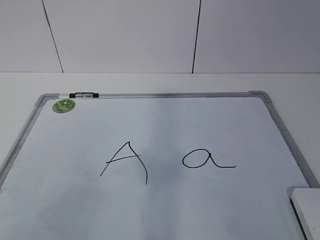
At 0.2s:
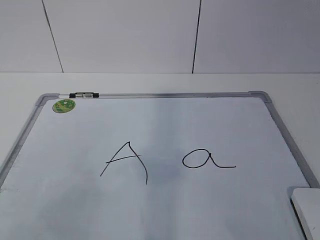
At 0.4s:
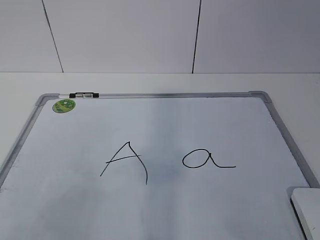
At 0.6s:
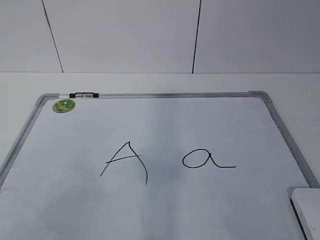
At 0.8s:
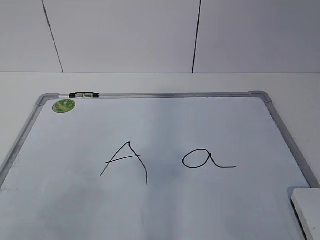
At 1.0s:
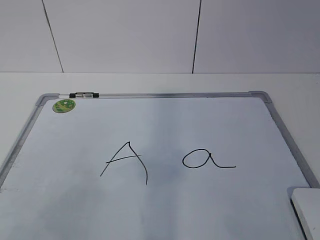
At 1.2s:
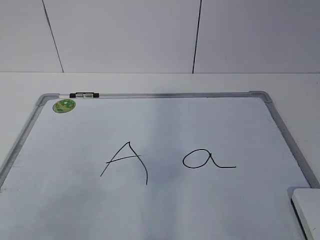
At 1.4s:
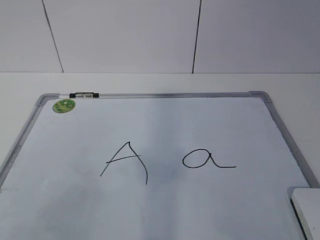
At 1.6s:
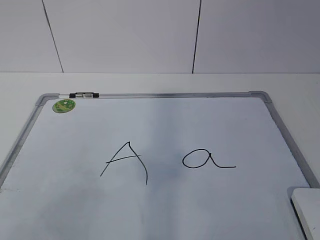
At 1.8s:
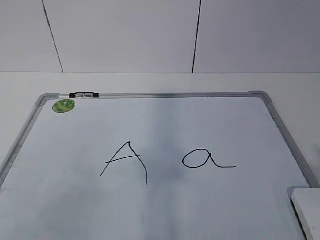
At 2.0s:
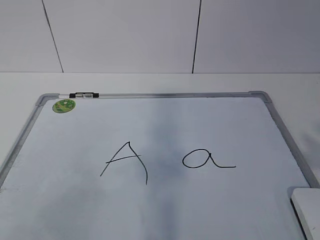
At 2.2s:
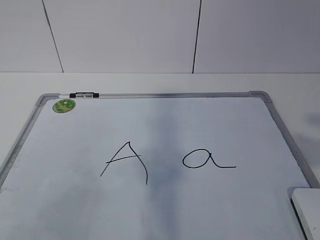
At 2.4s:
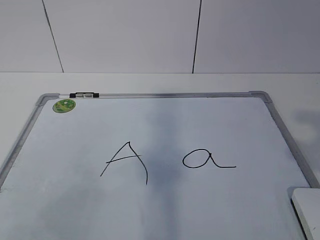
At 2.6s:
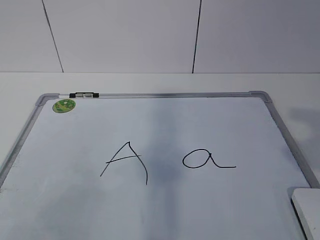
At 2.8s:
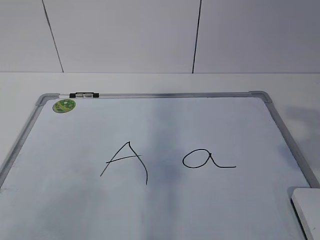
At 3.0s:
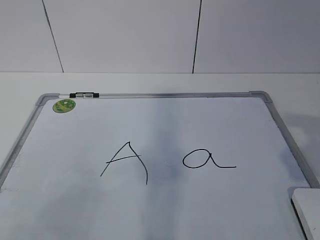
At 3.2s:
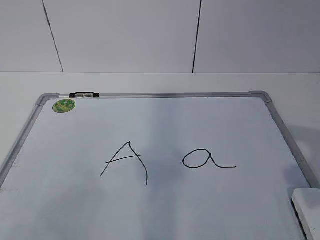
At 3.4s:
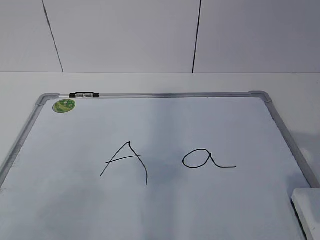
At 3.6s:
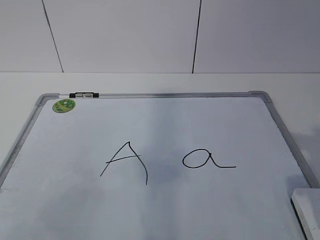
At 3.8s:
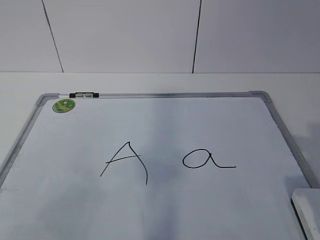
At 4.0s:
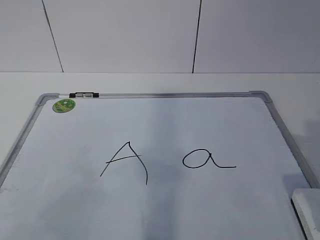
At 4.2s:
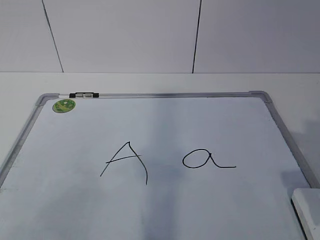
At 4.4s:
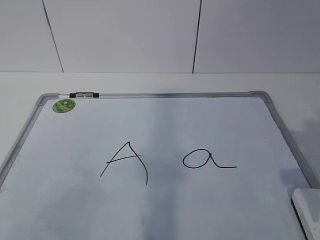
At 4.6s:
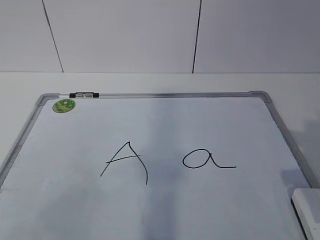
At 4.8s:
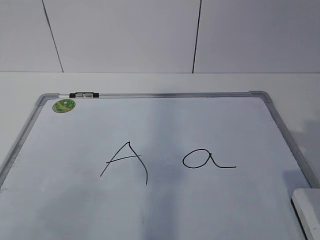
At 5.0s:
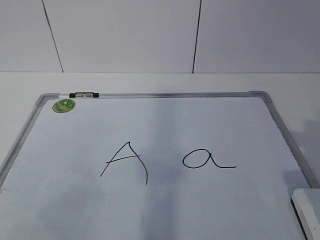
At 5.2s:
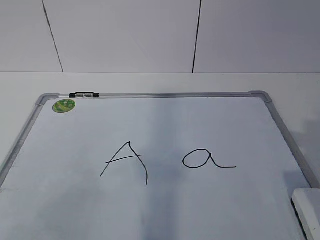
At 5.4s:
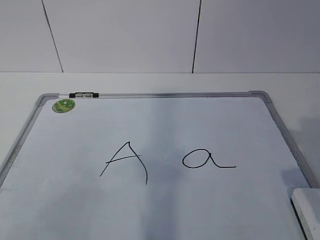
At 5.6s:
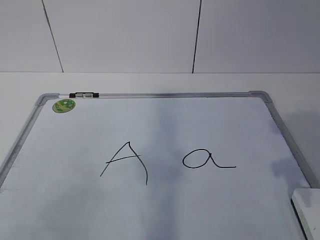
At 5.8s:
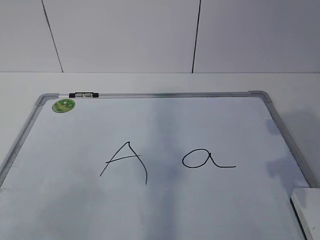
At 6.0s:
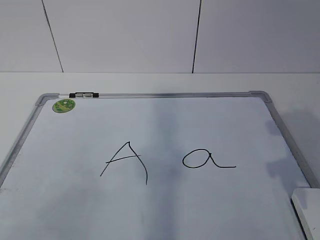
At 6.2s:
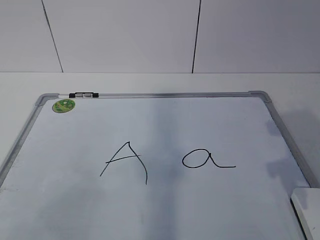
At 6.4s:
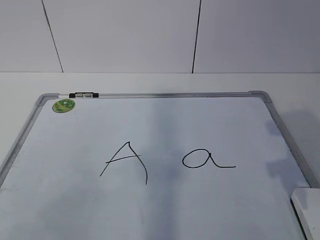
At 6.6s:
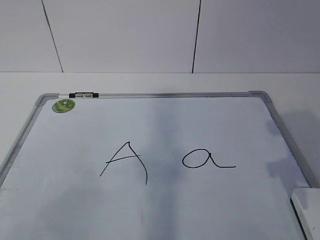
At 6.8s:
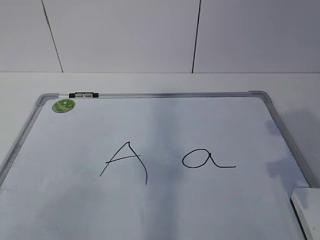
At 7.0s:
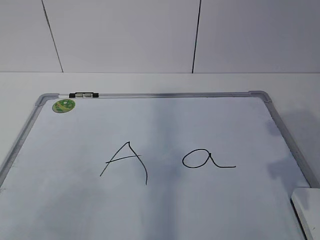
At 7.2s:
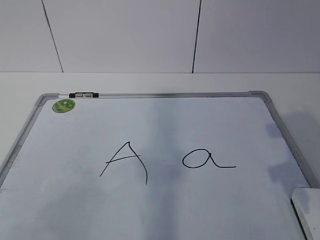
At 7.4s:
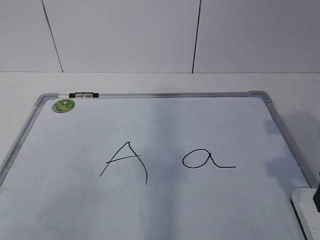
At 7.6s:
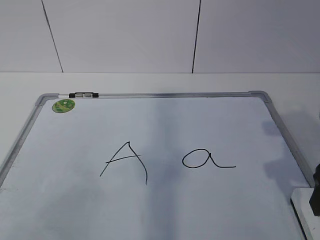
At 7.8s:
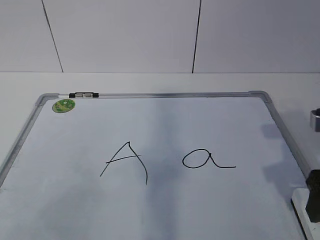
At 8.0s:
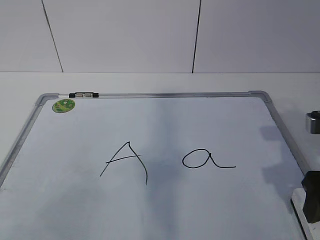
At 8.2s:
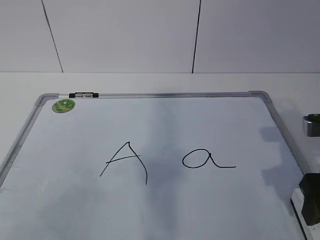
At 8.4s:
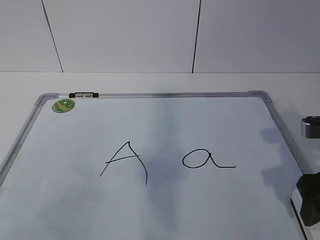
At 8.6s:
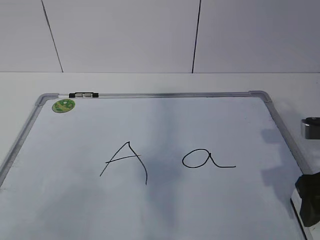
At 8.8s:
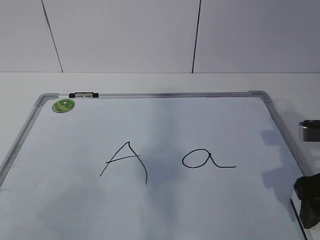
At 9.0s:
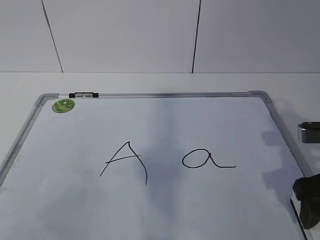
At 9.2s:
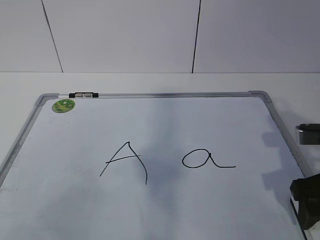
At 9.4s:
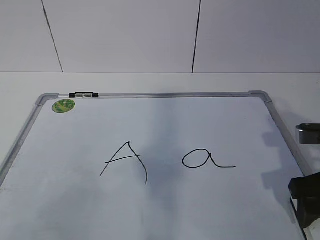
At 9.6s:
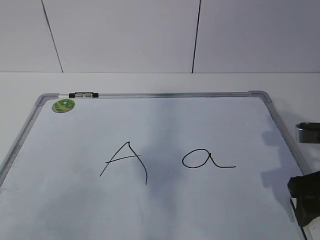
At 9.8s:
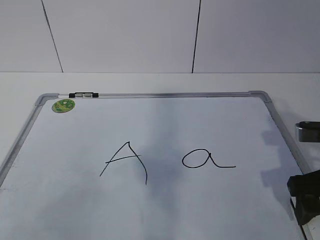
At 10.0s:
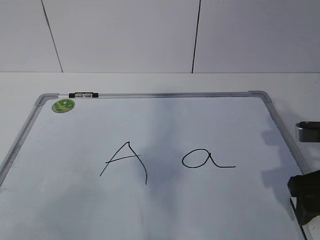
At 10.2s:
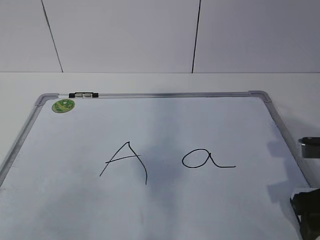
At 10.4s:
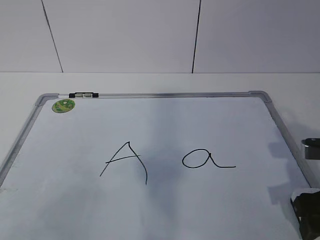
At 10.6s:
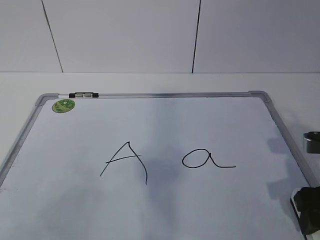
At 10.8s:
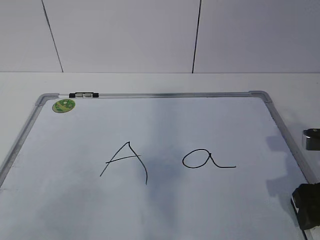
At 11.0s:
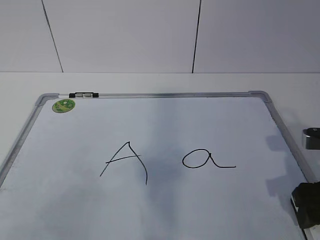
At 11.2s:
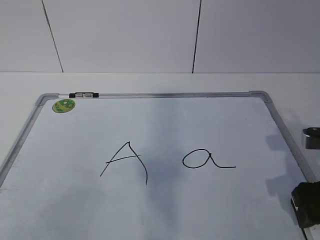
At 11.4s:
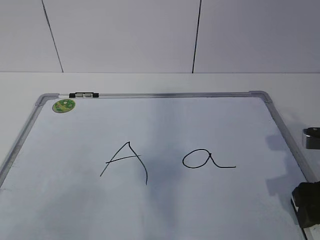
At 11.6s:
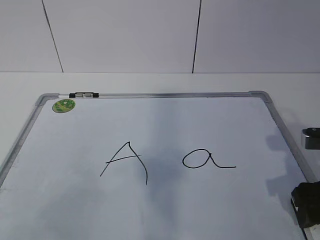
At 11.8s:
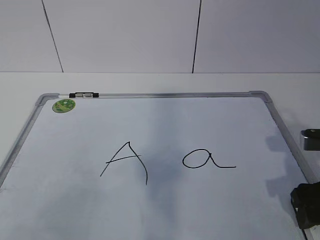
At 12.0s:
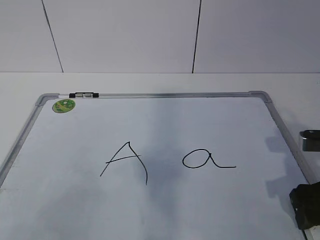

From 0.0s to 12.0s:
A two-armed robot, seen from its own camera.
Task of the whole recording: pick up the eraser on the blackboard and erase the letter "a".
From 3.0s to 4.4s: The right gripper goes some 10 cm downward and forward.
From 7.6s to 9.0s: The right gripper shifts by about 5 cm.
From 9.0s to 12.0s: The grippers move only a little.

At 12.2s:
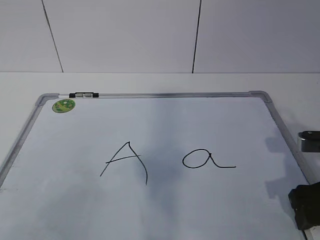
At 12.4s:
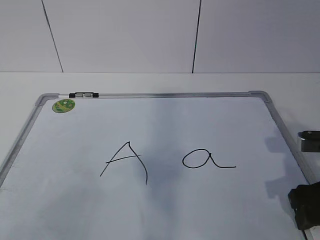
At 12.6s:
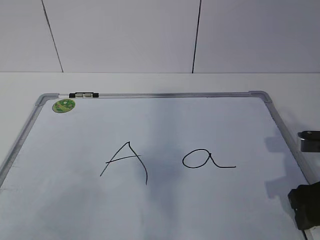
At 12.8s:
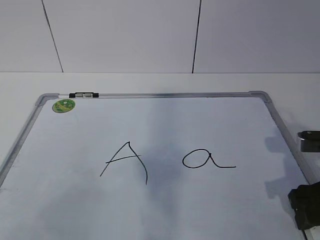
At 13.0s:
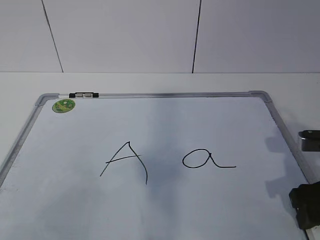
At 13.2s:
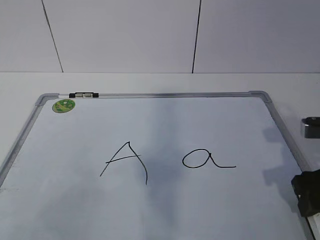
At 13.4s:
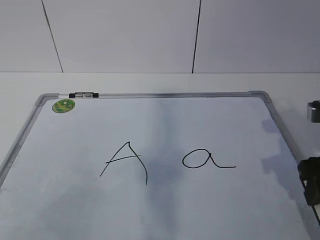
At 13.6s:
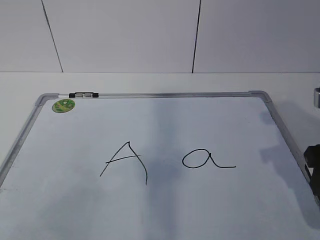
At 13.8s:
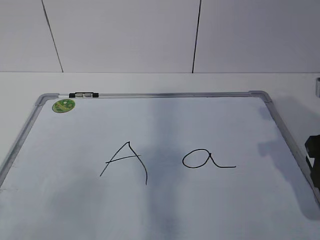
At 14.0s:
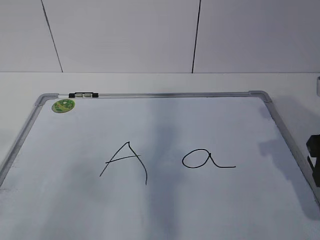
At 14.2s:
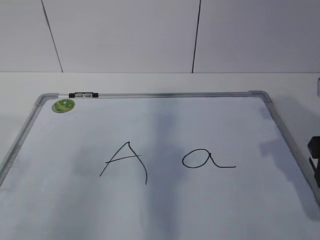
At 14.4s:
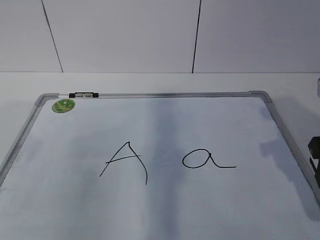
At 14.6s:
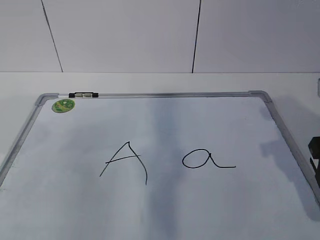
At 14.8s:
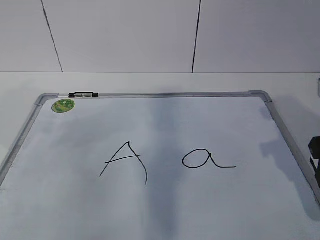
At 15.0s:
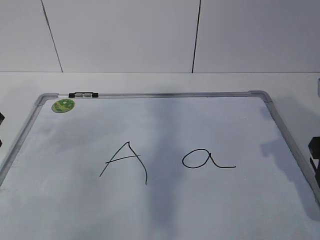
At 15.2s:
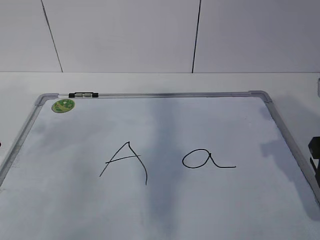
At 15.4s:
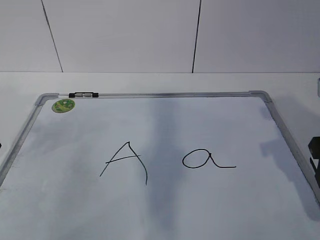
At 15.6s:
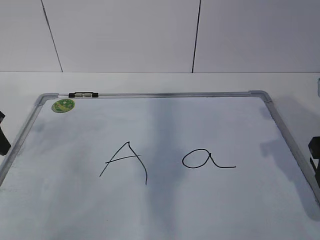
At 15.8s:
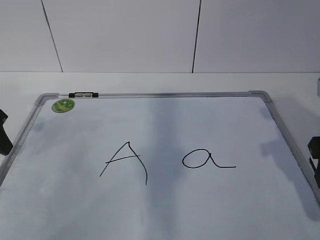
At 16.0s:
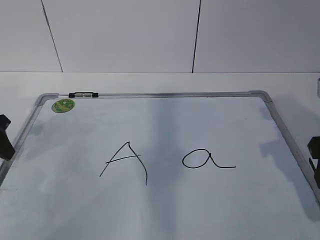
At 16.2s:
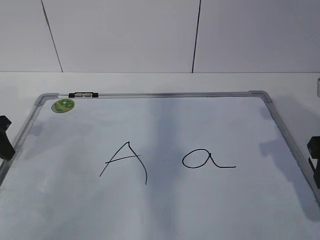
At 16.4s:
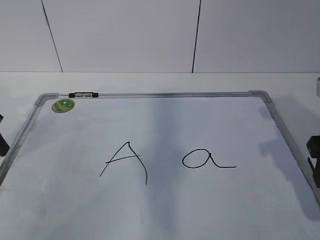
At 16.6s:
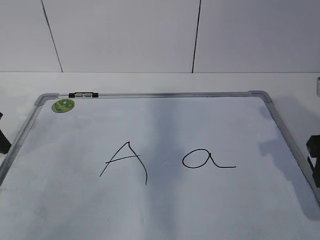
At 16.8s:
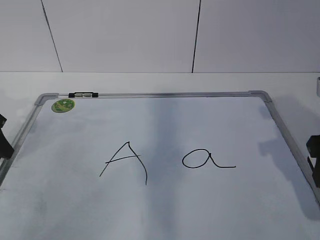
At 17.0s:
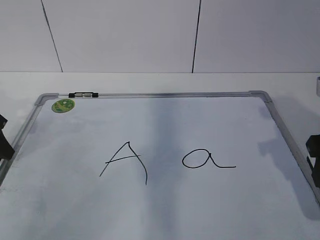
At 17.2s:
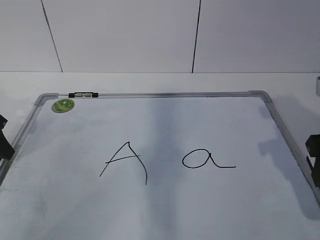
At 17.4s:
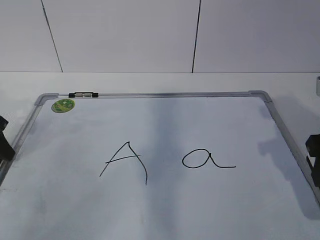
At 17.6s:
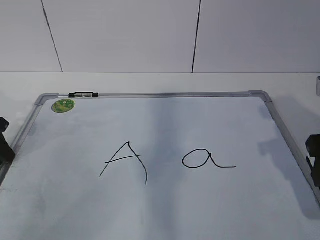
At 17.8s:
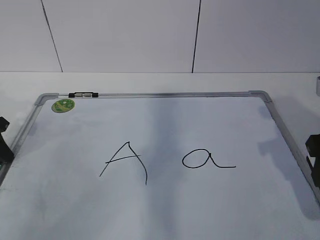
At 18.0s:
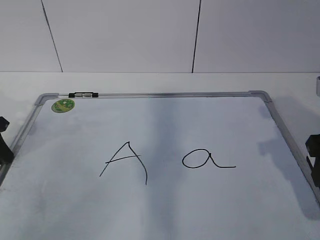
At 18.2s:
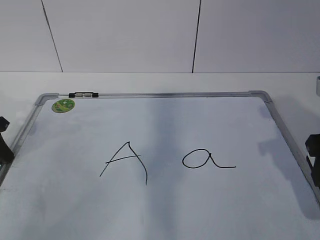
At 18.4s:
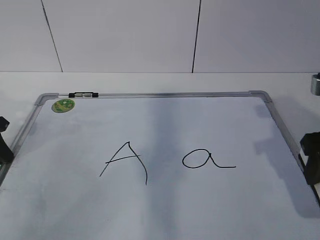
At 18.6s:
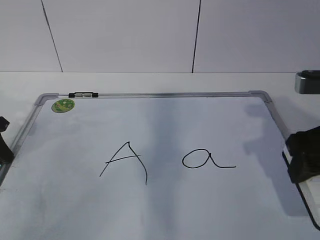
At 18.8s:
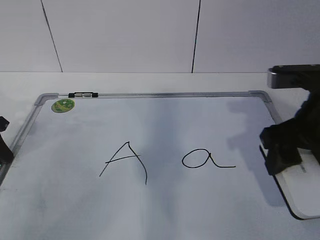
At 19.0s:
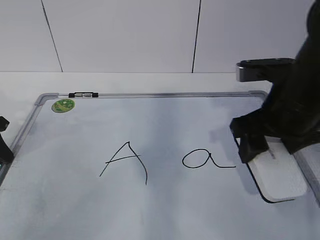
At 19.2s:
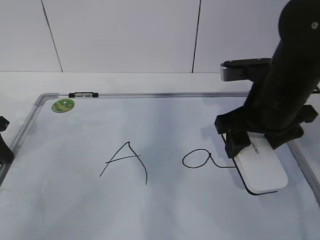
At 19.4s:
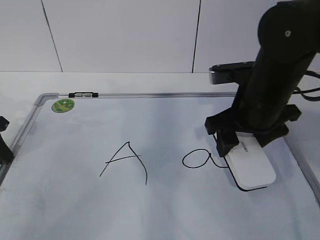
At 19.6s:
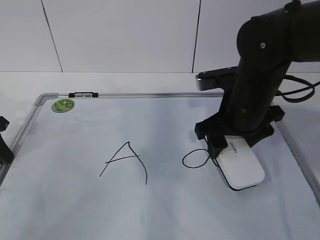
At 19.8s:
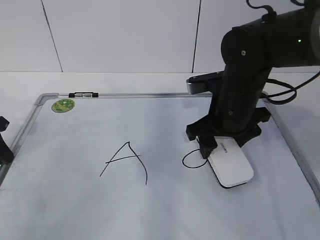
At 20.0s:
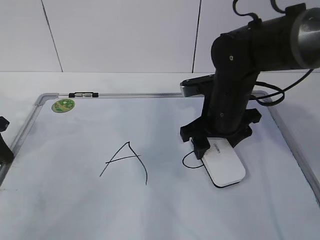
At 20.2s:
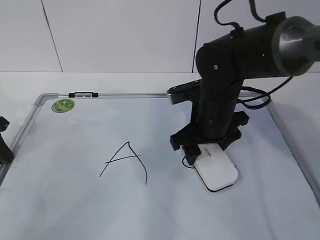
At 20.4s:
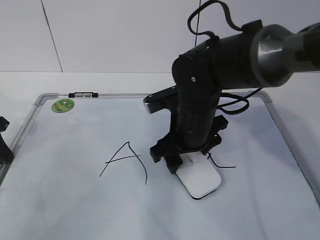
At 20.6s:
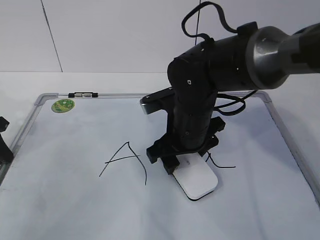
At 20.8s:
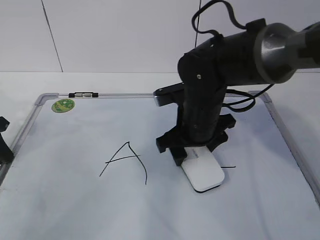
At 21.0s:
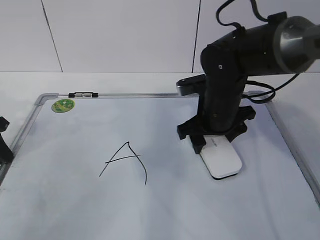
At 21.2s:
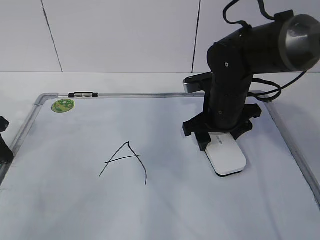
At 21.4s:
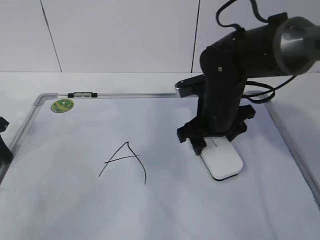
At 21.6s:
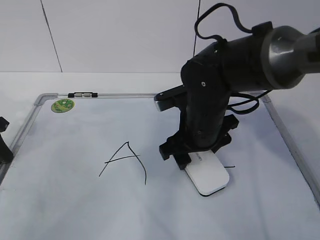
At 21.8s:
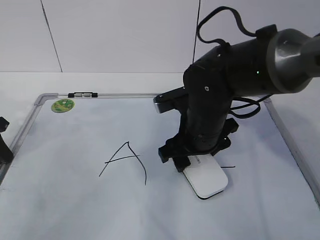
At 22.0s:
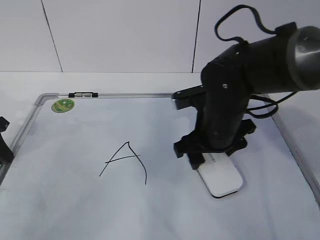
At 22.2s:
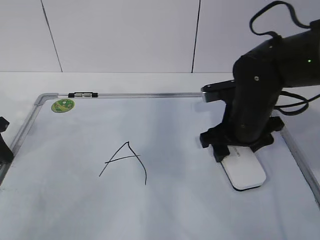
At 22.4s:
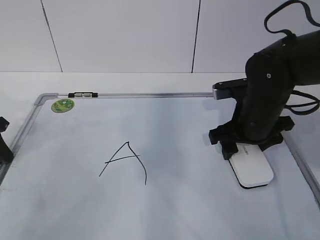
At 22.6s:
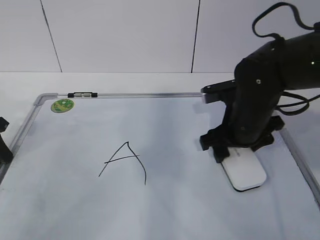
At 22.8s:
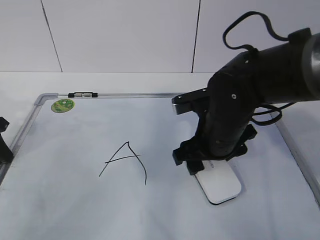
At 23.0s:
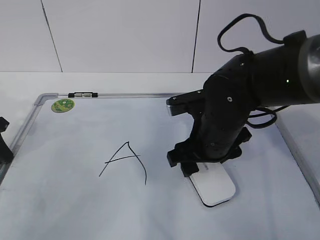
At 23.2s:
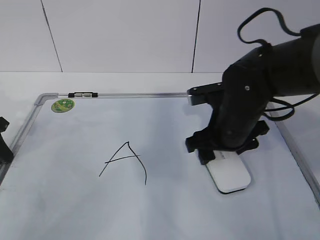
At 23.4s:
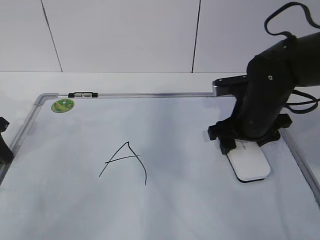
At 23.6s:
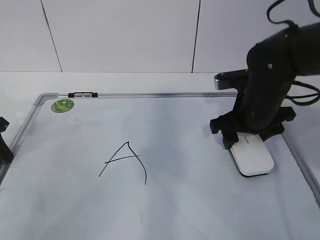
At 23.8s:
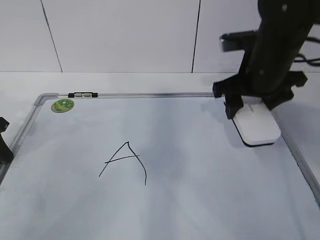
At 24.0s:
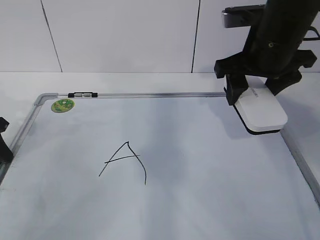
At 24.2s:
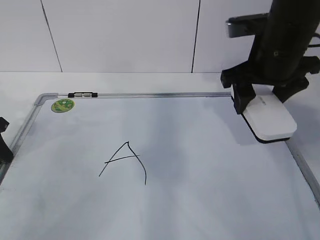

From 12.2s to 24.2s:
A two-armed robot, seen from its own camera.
Task of the whole recording: pick up the eraser on the blackboard and erase the letter "a".
Step, from 12.2s to 14.8s: Hold the drawing board steady with your left hand.
Step, from 15.0s to 19.4s: Erase the letter a with your right hand.
Step, from 19.6s to 22.8s: Put down the eraser with your right hand.
From 12.2s to 13.8s: The right gripper heads upward, covering roughly 10 cm, and closes up.
From 18.2s to 19.8s: The right gripper is displaced to the left, forward and downward by some 20 cm.
From 21.2s to 22.6s: The right gripper reaches some 5 cm to the left, then returns.
From 22.6s to 24.2s: The right gripper goes some 10 cm upward.
